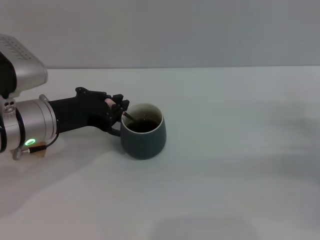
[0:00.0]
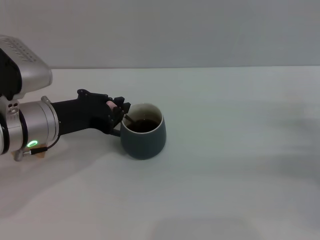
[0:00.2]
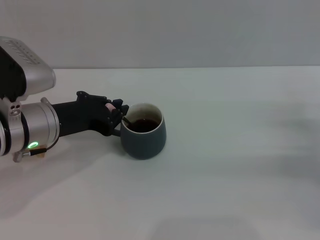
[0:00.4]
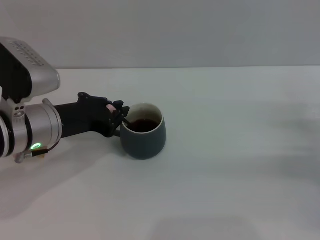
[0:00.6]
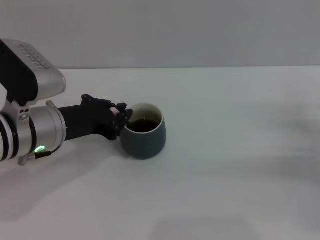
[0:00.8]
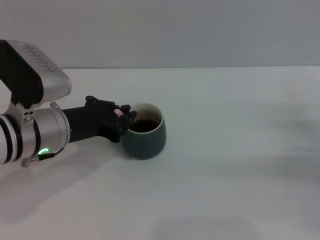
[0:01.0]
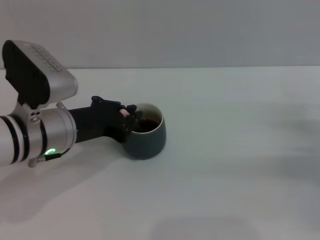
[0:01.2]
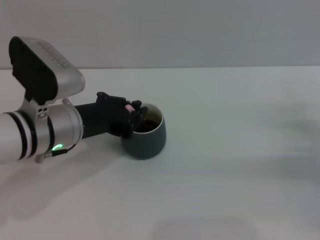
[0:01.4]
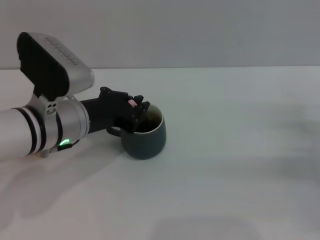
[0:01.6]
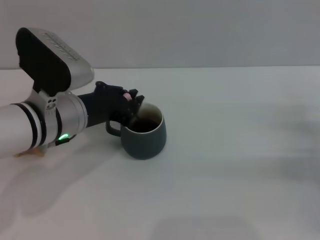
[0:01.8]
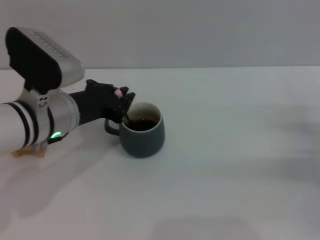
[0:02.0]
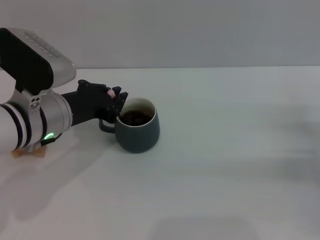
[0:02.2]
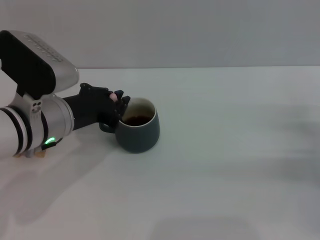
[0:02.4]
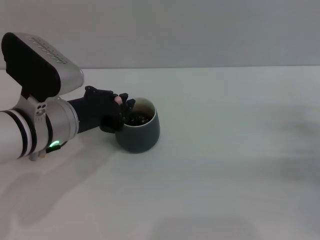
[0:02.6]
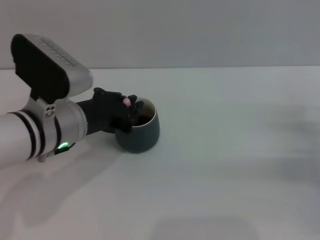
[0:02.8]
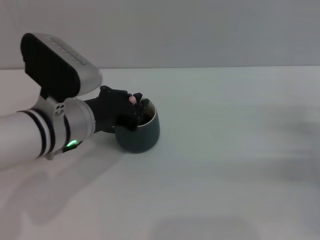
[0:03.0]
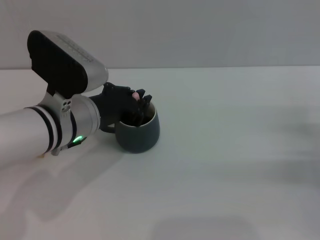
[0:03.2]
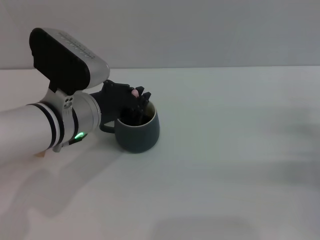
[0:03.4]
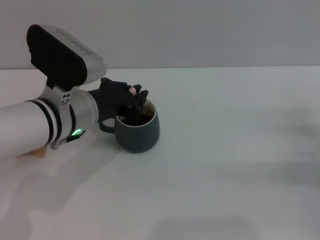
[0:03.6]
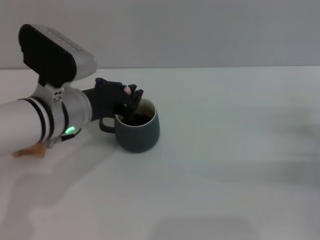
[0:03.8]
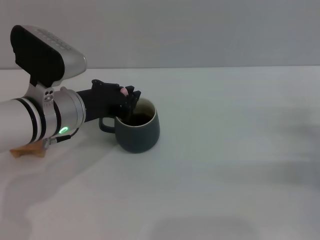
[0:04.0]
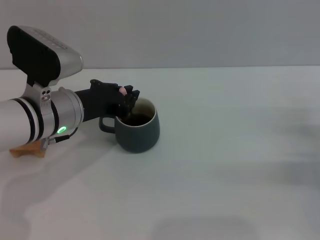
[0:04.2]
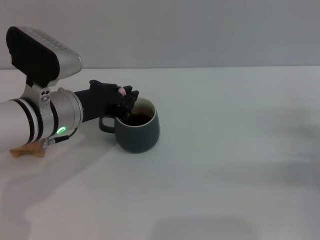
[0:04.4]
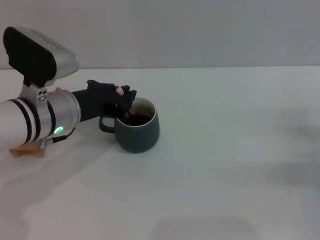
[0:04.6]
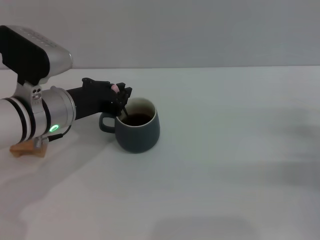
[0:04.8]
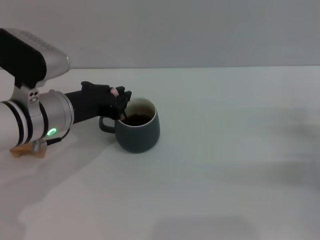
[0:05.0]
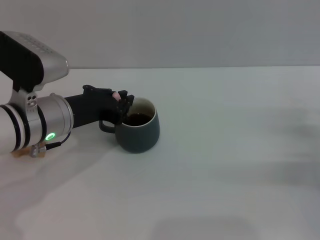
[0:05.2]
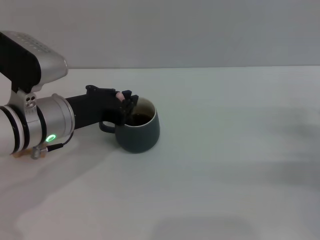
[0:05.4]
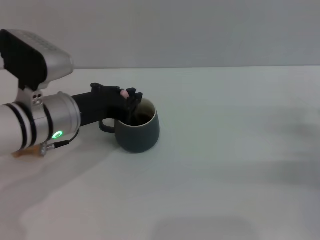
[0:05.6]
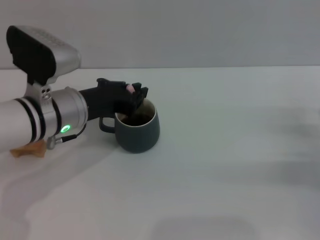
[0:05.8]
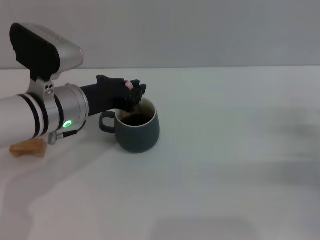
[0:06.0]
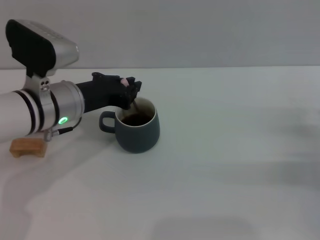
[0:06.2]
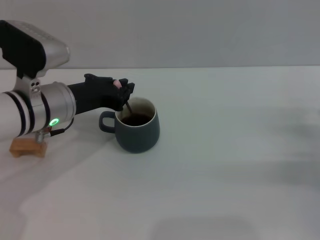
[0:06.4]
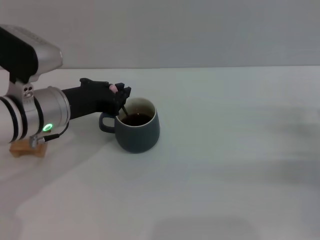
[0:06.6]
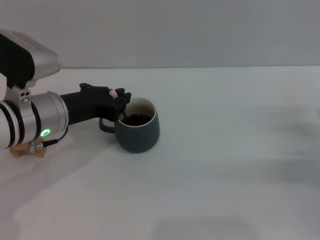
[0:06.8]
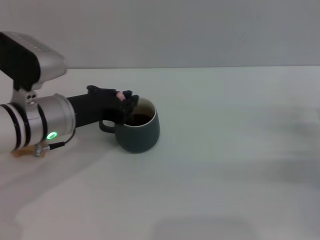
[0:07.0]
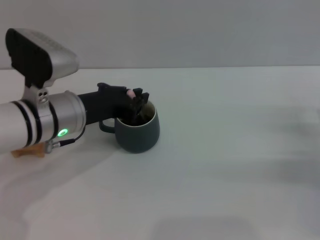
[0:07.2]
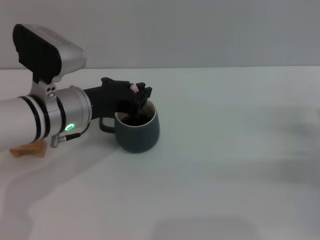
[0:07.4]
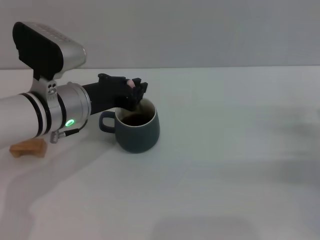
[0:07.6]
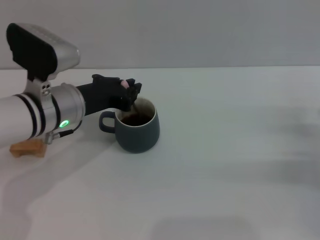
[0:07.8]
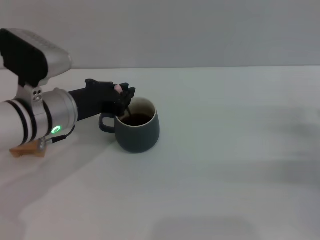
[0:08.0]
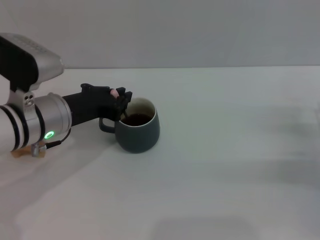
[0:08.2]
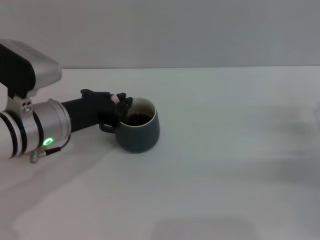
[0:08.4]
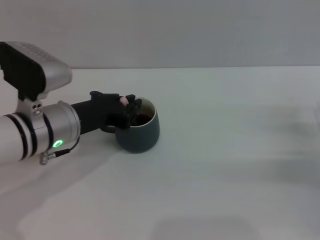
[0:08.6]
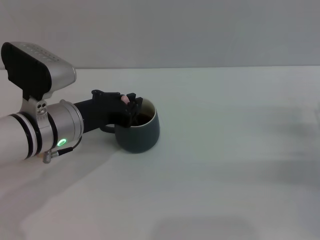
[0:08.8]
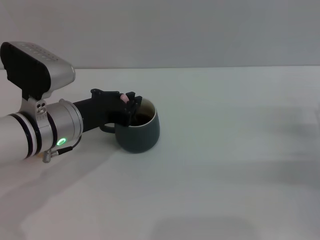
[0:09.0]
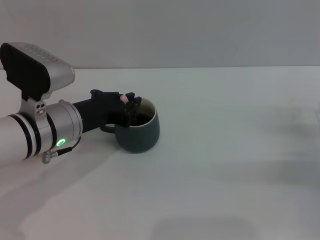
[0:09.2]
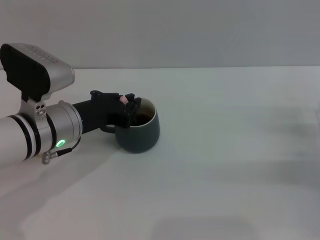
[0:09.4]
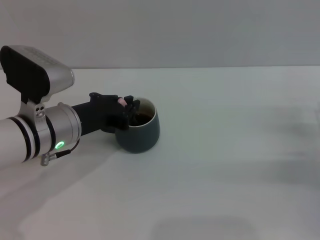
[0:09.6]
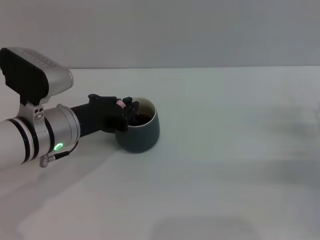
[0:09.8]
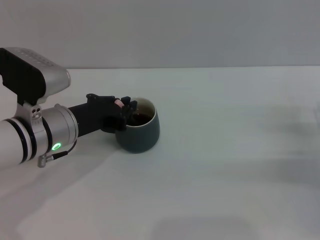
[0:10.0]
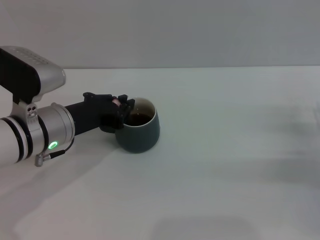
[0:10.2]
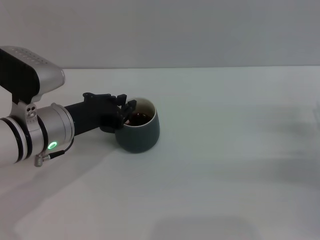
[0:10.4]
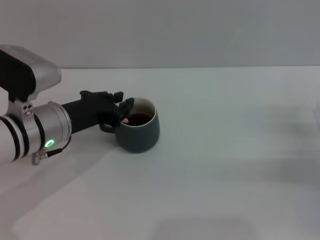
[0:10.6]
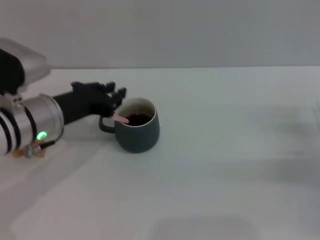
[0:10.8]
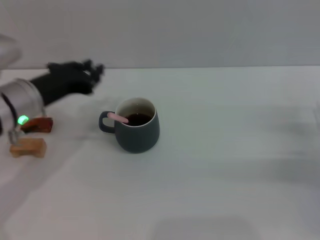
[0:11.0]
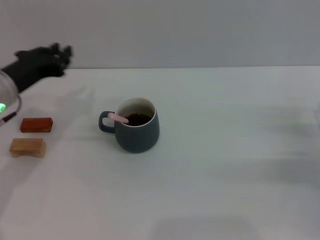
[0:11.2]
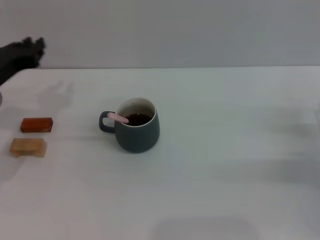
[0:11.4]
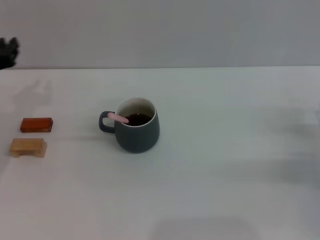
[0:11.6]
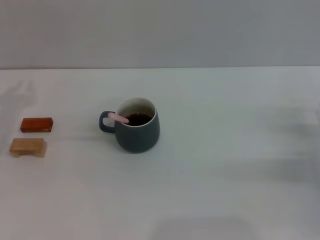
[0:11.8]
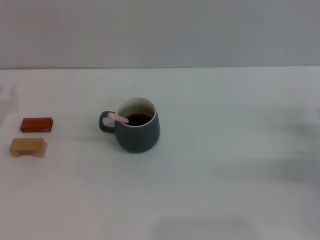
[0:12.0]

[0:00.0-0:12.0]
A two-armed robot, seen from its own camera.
Task of the whole recording: Move the grey cup to the center, lift the pink spoon, stir it three times in the cup, and put the spoon into the cup.
Step, 0:00.0 to 0:10.8: Stir the coffee in the cup with the left gripper.
0:00.0 to 0:09.0: The grippers stay close to where they were, moving slightly.
0:09.0 to 0:10.4: The two grippers keep their place.
0:10.4 to 0:12.0: The left gripper goes some 15 cm to the left.

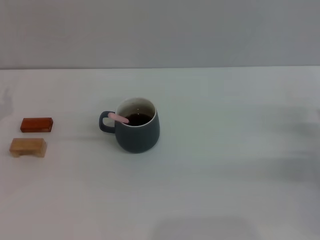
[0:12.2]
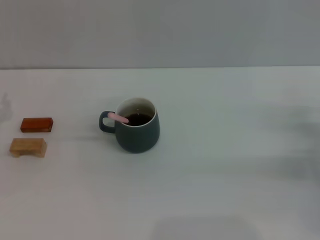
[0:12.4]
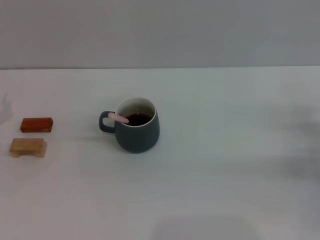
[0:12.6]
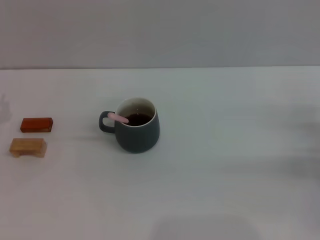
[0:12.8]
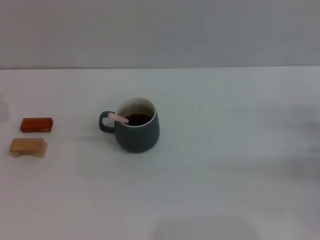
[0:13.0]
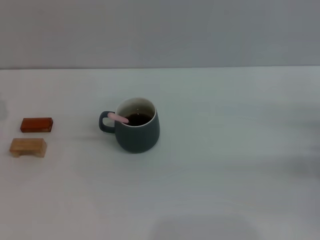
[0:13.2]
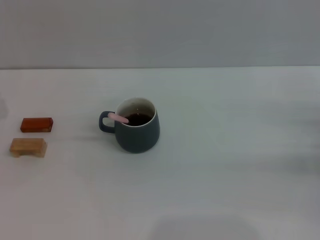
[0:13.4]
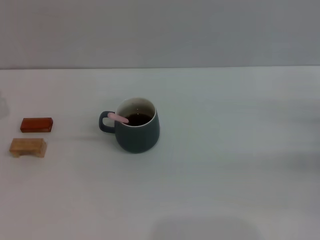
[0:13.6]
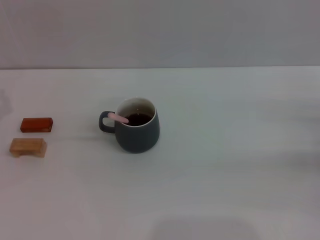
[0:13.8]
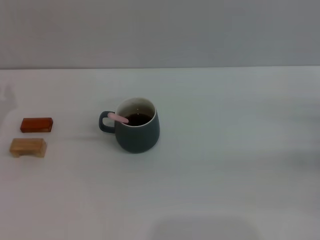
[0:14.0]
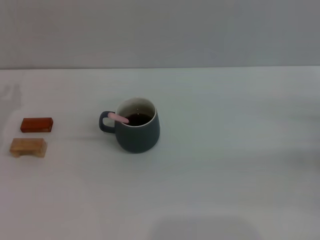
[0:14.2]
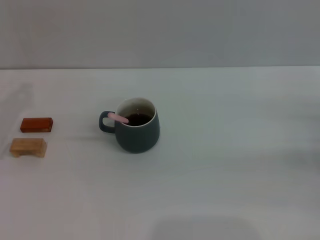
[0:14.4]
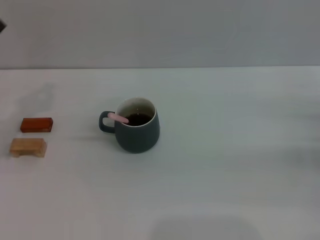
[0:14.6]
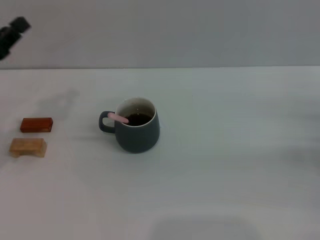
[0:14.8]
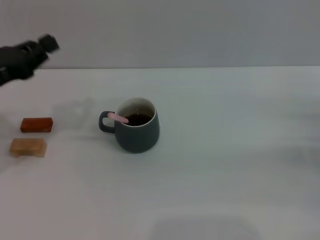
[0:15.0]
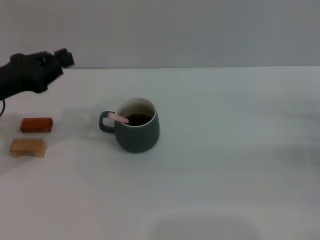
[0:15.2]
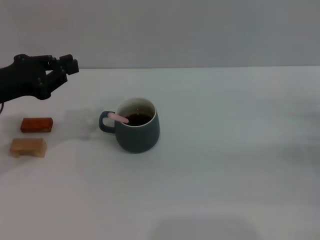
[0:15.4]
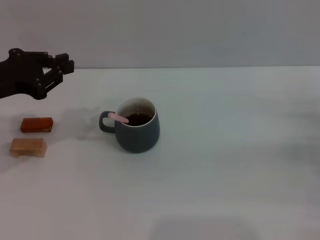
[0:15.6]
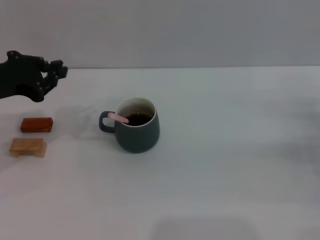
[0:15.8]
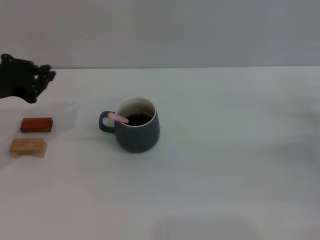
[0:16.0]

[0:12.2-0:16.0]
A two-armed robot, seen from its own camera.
Task of the whole recording: Move the grey cup to the center, lift the pink spoon, stir it three times in the cup, and put the spoon into the cup.
0:13.4 to 0:14.8: The left gripper is displaced upward by about 5 cm.
0:14.8 to 0:16.0: The left gripper ends up some 5 cm from where it was.

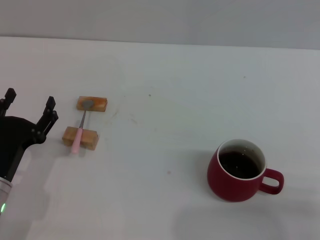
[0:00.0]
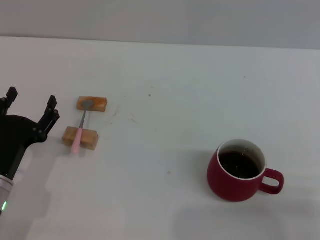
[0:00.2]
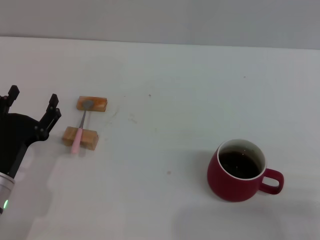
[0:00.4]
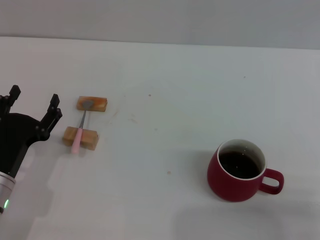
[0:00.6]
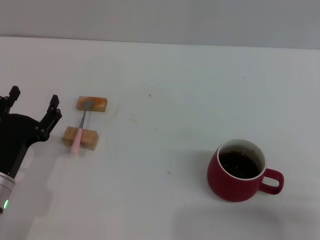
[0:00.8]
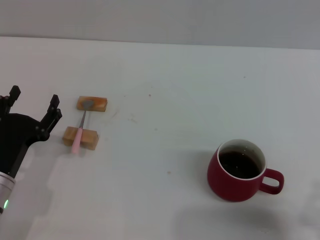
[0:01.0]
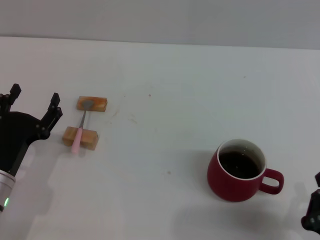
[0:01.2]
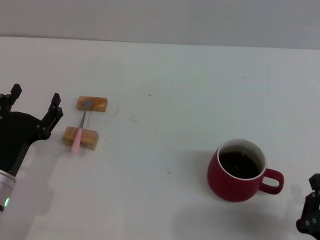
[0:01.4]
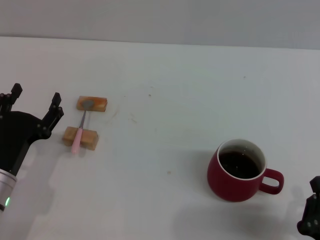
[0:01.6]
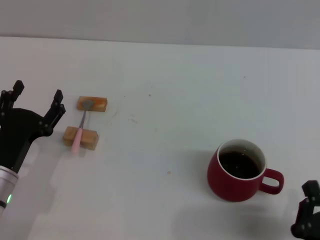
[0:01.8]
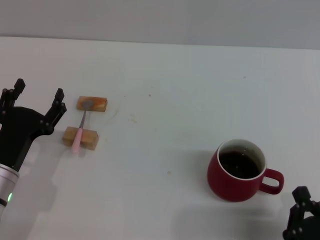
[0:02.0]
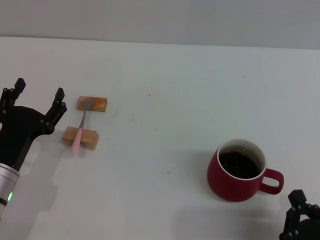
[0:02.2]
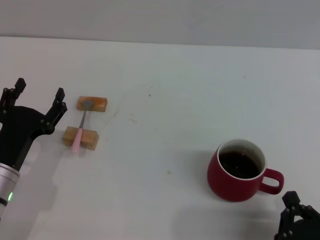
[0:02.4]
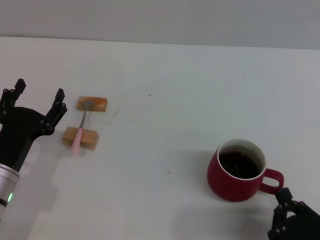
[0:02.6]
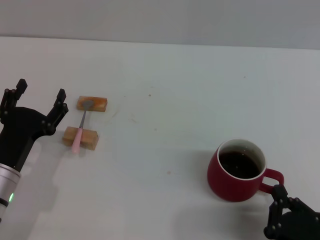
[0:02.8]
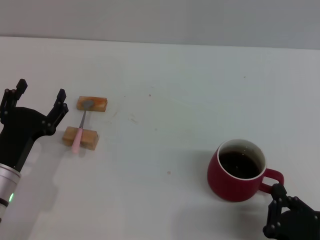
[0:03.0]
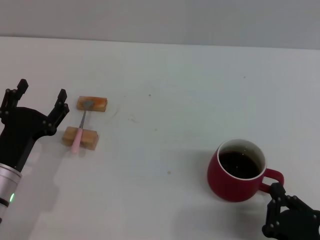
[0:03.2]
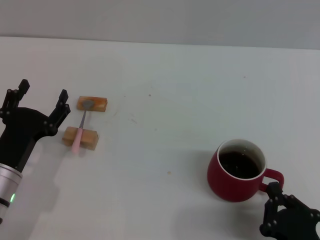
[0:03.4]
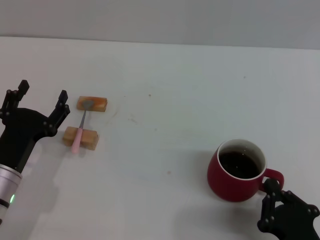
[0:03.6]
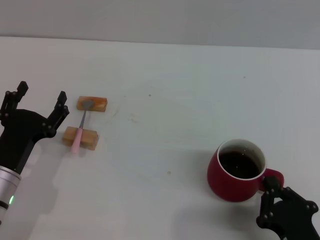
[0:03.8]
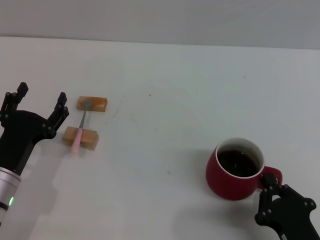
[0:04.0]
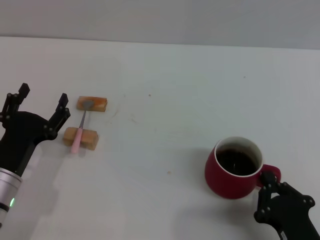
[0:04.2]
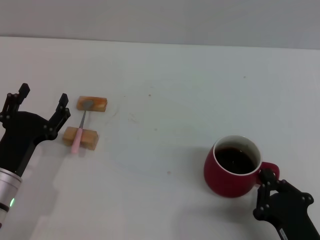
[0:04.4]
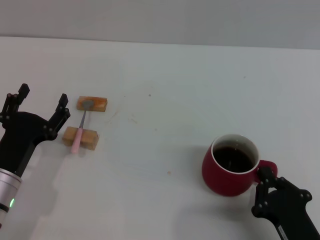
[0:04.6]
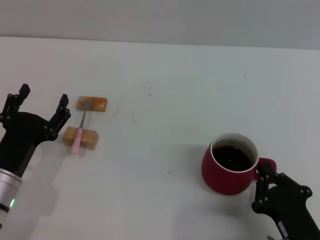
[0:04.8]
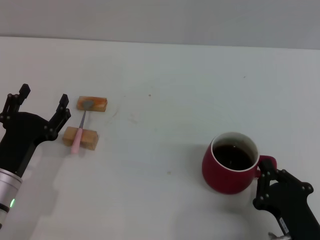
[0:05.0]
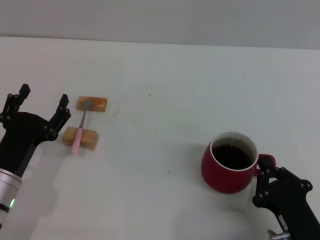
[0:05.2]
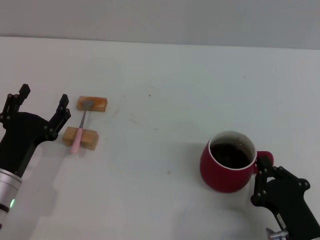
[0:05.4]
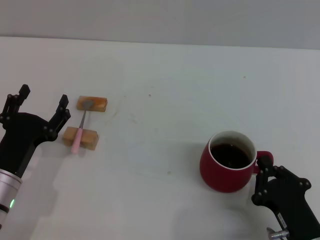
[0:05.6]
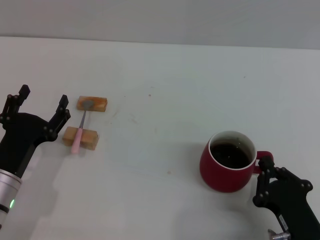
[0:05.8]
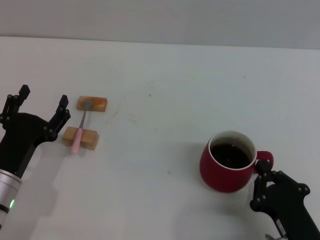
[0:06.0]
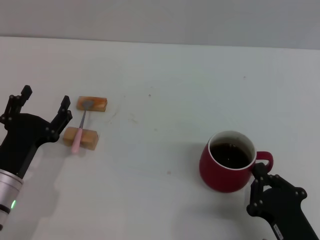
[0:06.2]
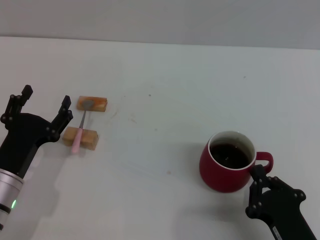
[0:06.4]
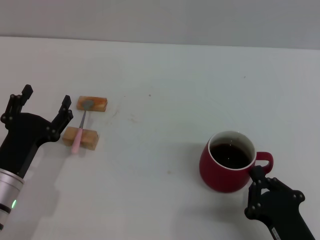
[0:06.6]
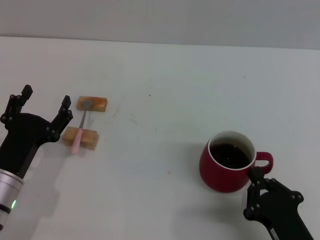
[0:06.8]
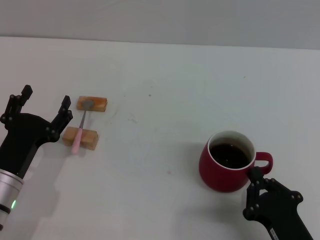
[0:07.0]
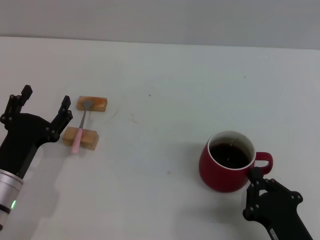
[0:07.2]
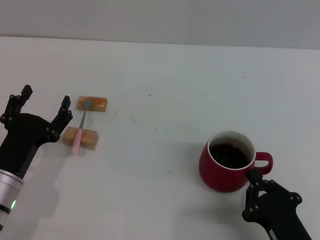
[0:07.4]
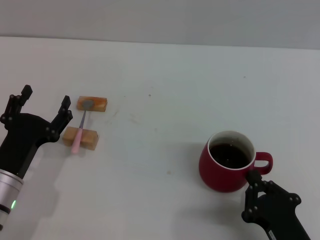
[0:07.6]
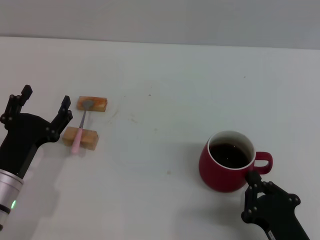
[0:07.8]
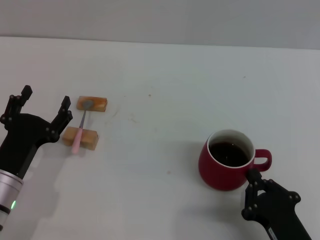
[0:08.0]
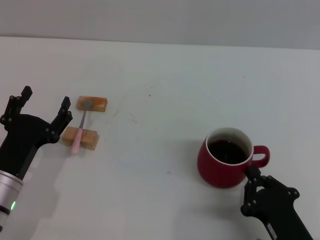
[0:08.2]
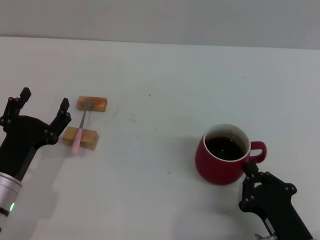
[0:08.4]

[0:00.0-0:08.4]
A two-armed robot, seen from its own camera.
Task of the whole recording: Move the red cup to the center, lift the pink spoon, stir it three times in the cup, and put the spoon into the cup.
0:00.0 to 0:01.4: The right gripper travels to the left by approximately 5 cm.
0:01.4 to 0:04.2: The grippers stay close to where they were, moving slightly.
0:04.2 to 0:08.4: The grippers move only a little.
